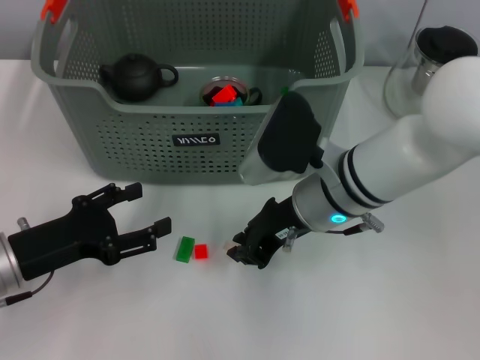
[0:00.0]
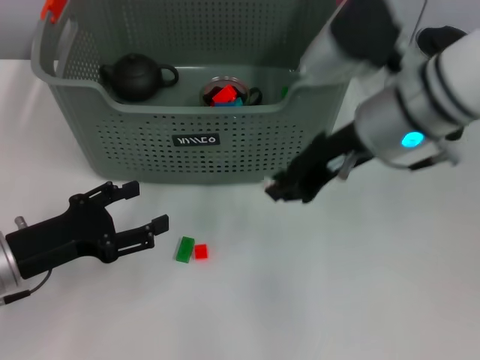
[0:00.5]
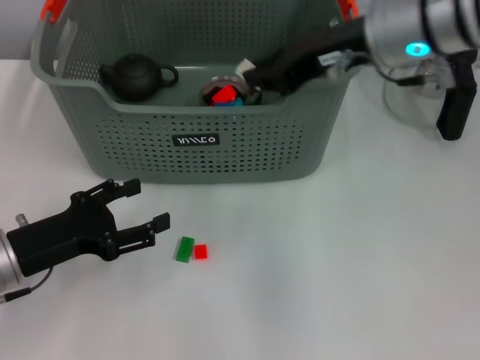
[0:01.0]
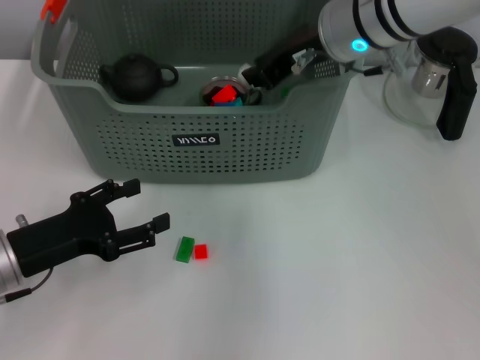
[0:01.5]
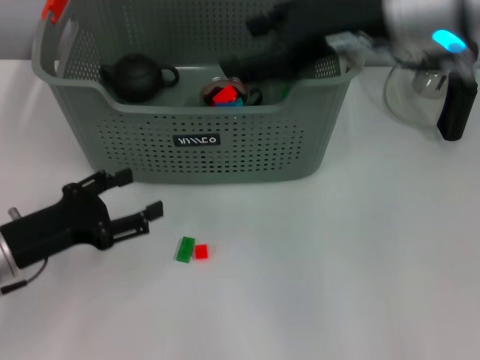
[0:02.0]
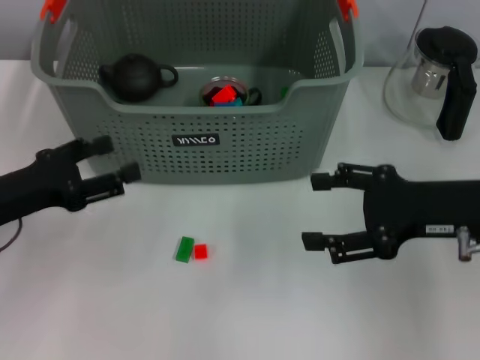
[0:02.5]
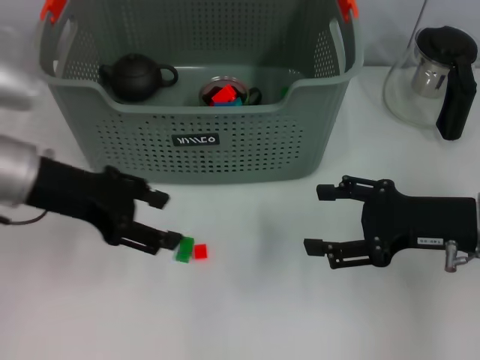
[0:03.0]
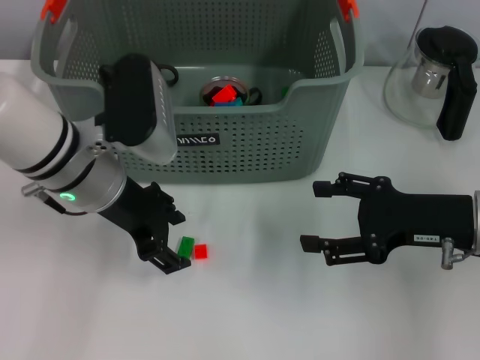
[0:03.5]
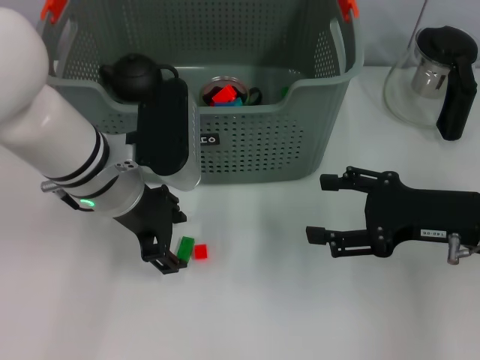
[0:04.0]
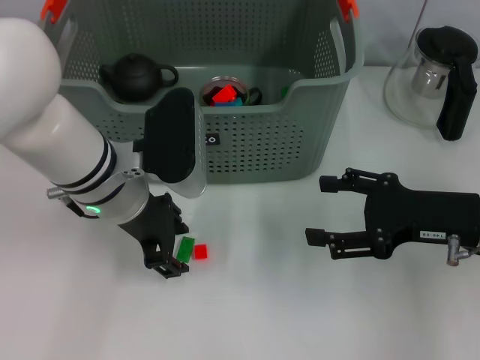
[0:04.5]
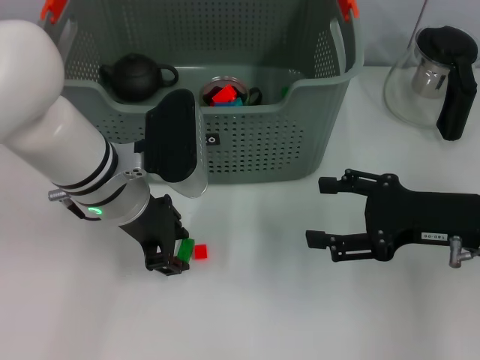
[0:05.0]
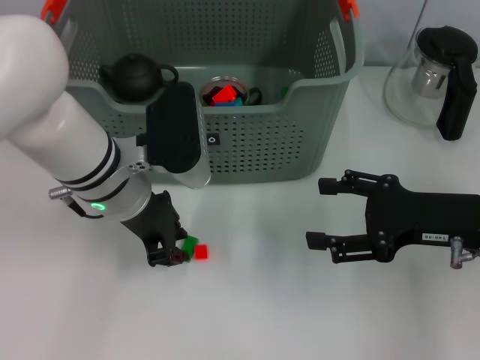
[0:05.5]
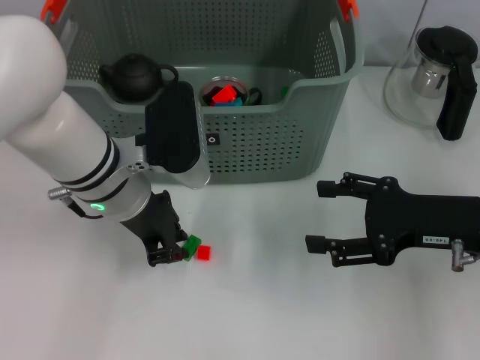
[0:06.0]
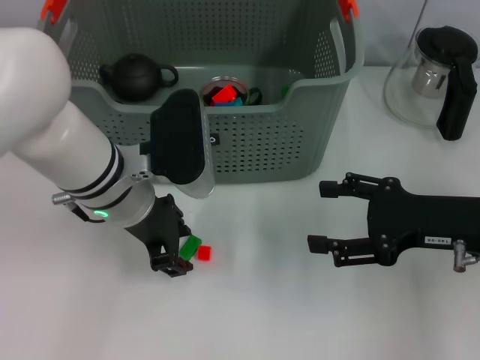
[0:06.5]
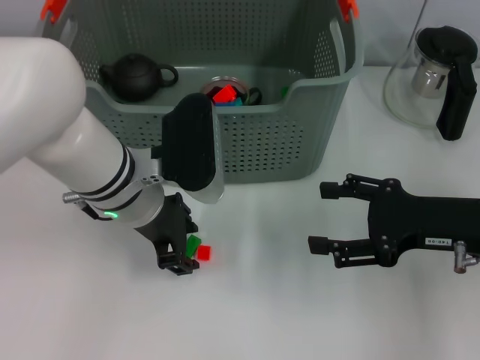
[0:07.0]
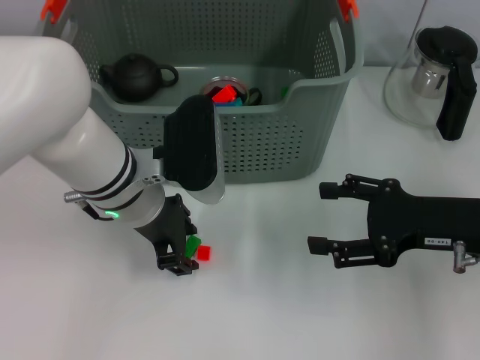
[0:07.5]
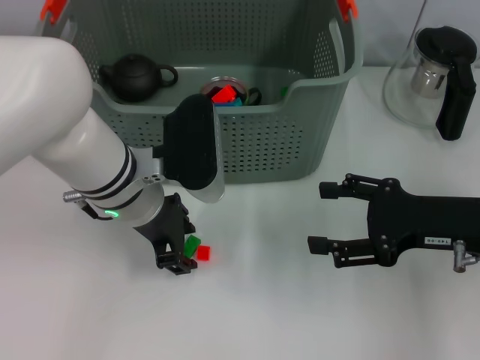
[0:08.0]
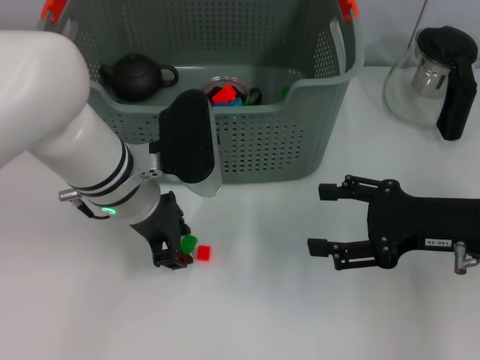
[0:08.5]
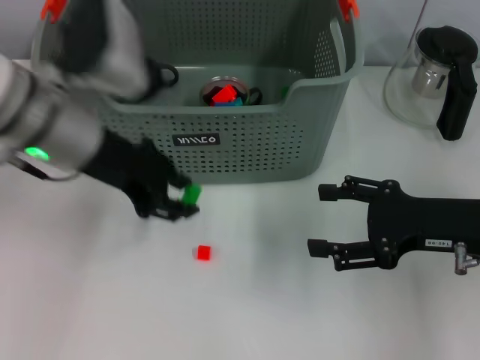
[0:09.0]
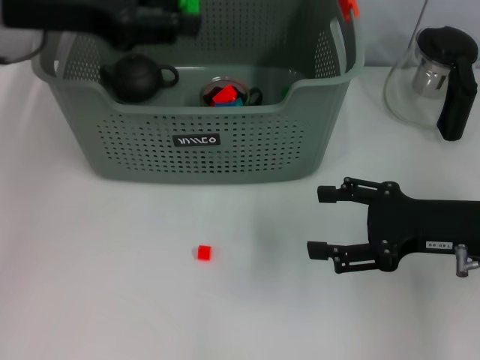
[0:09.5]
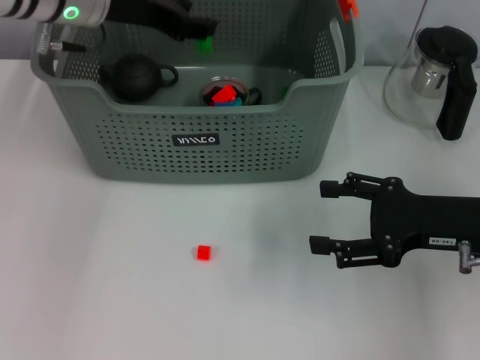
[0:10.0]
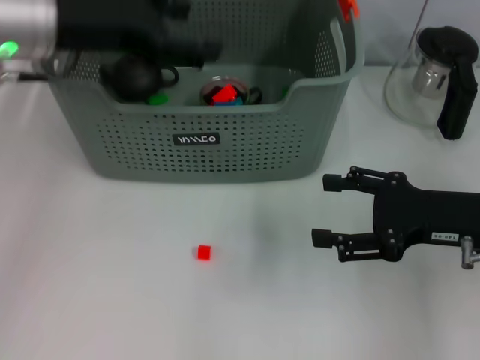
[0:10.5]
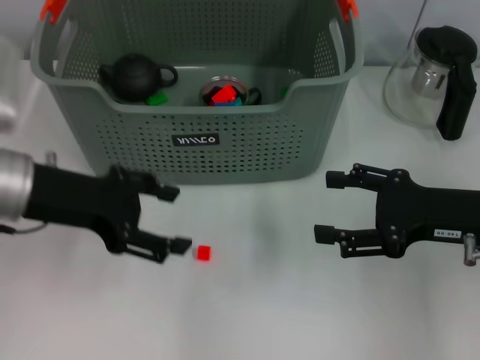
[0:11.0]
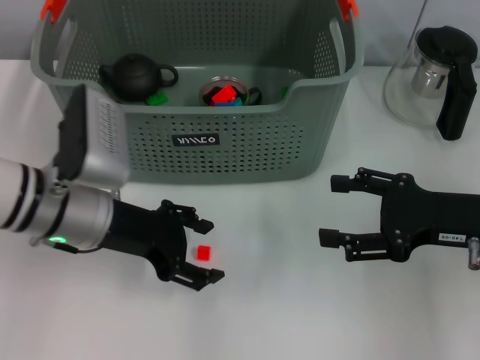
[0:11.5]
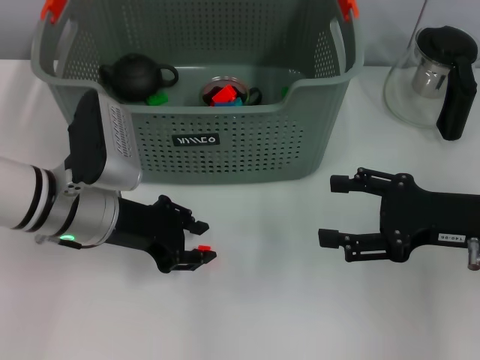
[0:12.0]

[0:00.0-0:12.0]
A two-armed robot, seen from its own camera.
Task of the whole recording: pick up the teacup on the table and place it into the storage bin, pick up the block on the table and place it into the storage bin.
Step, 0:00.0 to 0:01.5: Place the white block in the storage box with right gripper.
Step, 0:02.0 to 0:08.0: Grasp the green block with left gripper.
Step, 0:08.5 to 0:10.0: Place the green block in the storage box with left gripper.
0:00.0 to 0:02.0: The right gripper goes approximately 15 cm upward, and opens up.
0:02.0 to 0:04.0: The right gripper heads downward and to the right, covering about 20 cm, and opens its fingers. Meanwhile the left gripper travels to the right, forward and upward by roughly 20 cm.
0:04.0 to 0:06.0: The left gripper closes up.
0:06.0 to 0:08.0: The grippers move only a little.
0:08.0 to 0:10.0: The left gripper goes about 15 cm upward, forward and to the left.
0:10.0 to 0:12.0: The left gripper travels downward and backward by some 20 cm.

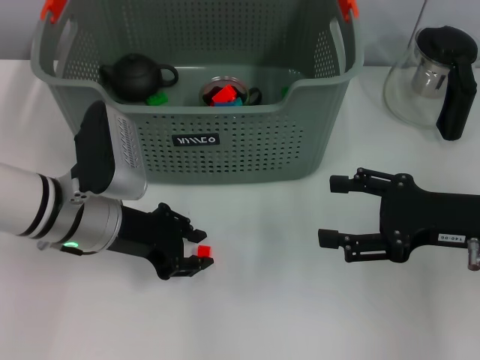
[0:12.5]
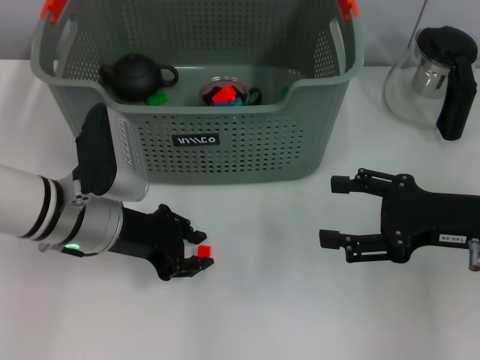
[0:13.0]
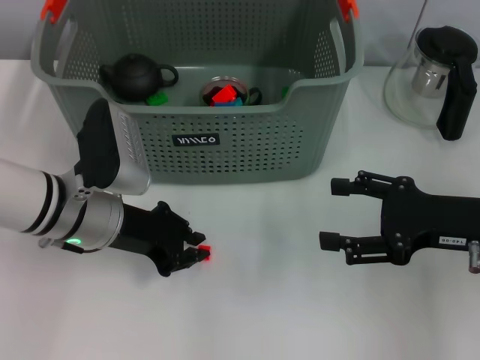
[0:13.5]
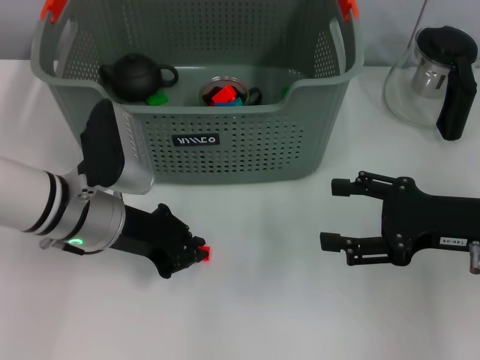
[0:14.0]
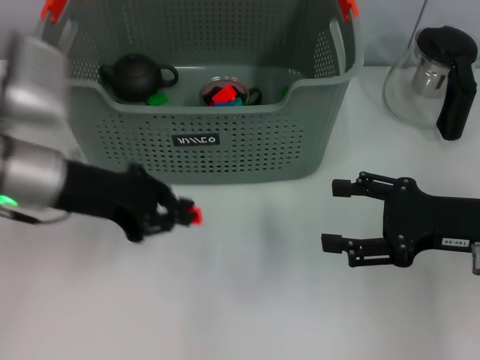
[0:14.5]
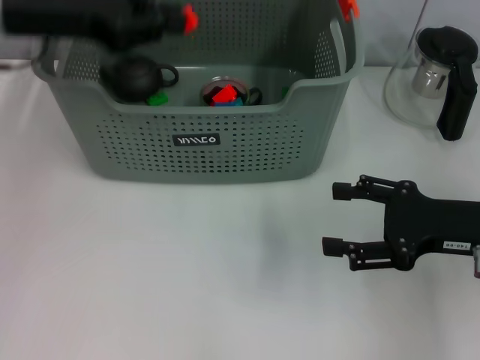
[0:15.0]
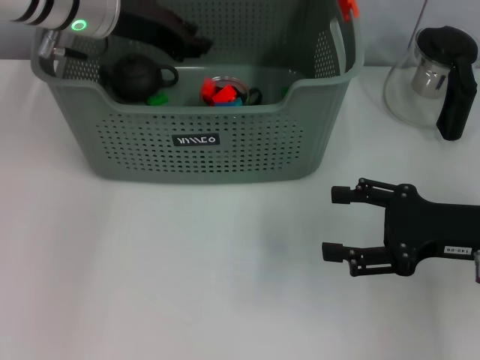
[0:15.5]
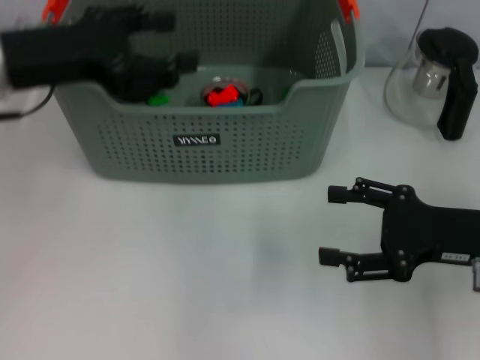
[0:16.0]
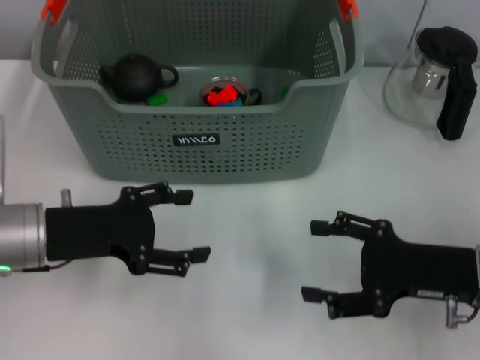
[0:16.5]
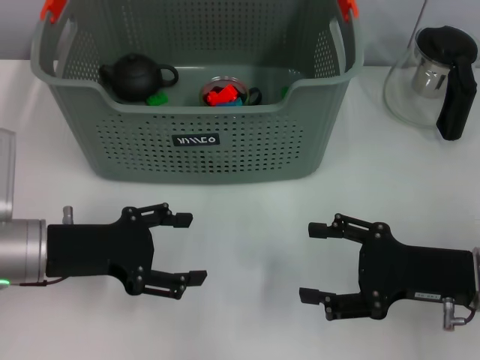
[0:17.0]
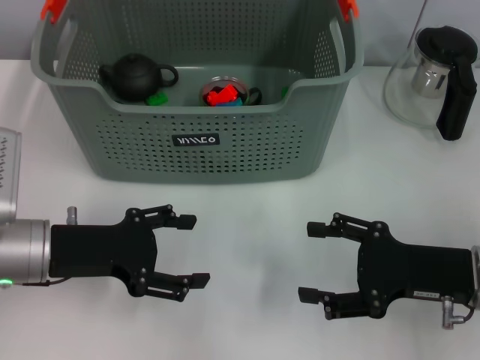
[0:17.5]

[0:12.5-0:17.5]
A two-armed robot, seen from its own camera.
Task of the whole recording: pick up the teacup on the table and place it into the storage bin, pick up the block on the table and place it into the storage bin.
Step, 0:14.0 to 0:15.5: Place the orange block in the storage box with left gripper.
0:12.5 to 0:15.0: The left gripper travels upward by some 15 cm.
0:15.0 to 0:17.5: The left gripper goes about 20 cm downward and backward, and opens up; the right gripper shifts by approximately 5 cm.
